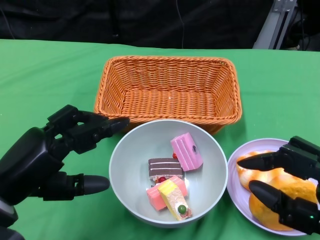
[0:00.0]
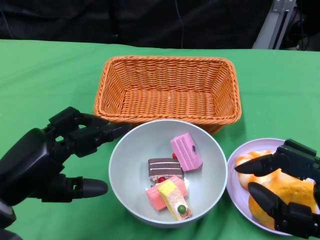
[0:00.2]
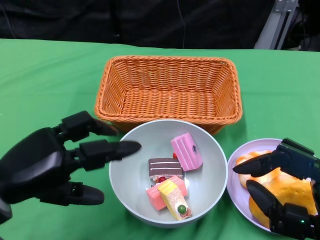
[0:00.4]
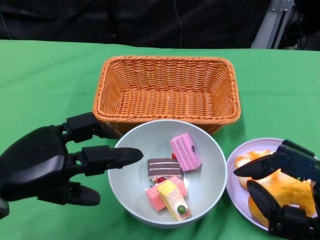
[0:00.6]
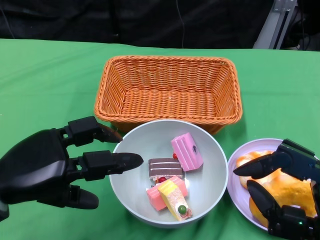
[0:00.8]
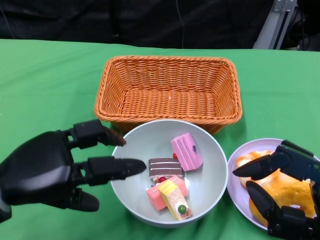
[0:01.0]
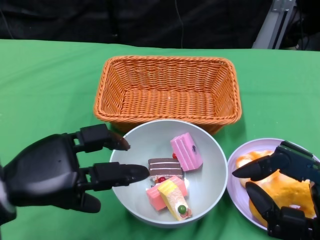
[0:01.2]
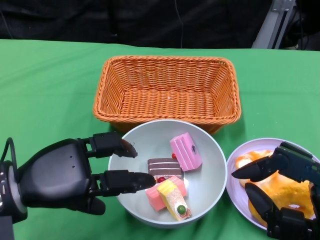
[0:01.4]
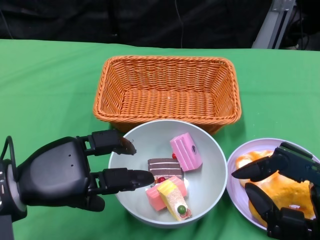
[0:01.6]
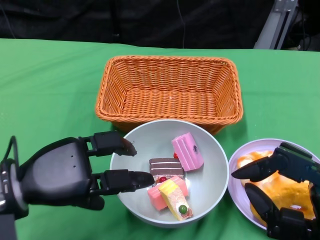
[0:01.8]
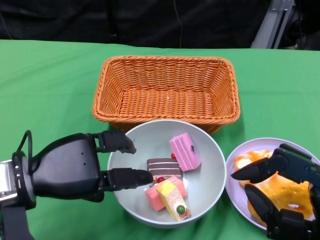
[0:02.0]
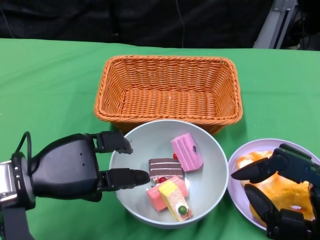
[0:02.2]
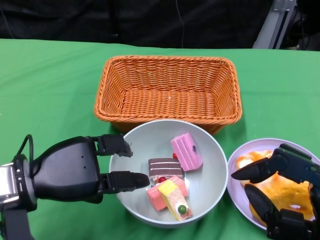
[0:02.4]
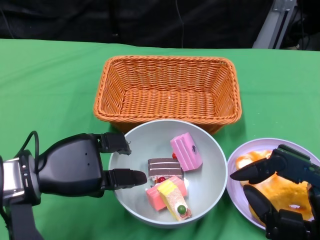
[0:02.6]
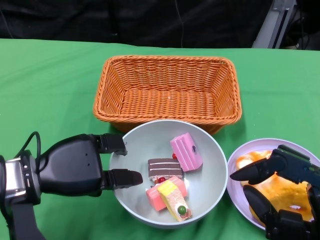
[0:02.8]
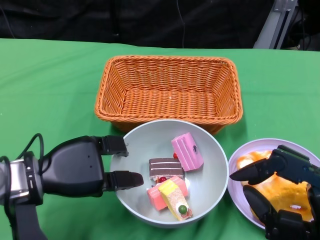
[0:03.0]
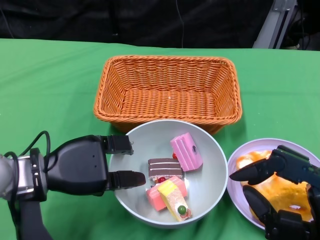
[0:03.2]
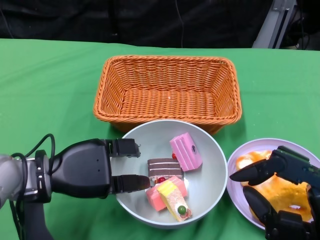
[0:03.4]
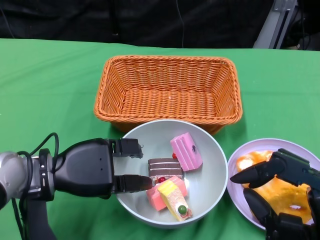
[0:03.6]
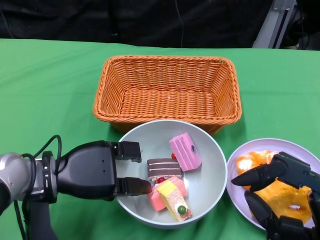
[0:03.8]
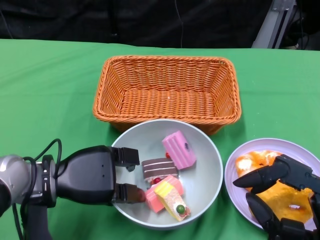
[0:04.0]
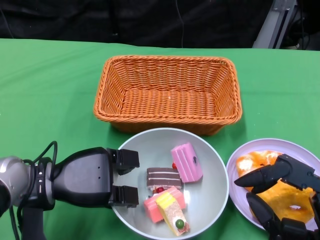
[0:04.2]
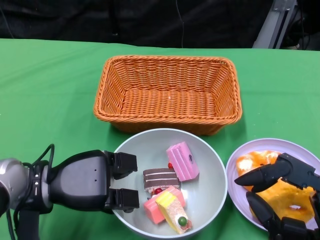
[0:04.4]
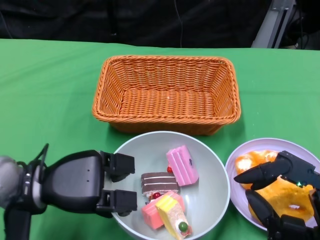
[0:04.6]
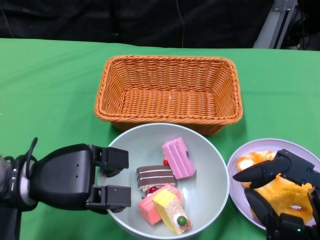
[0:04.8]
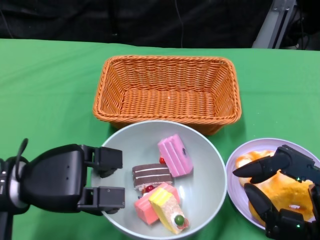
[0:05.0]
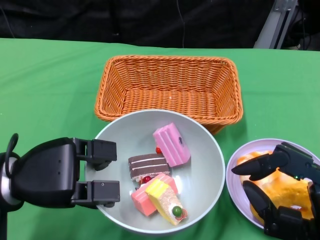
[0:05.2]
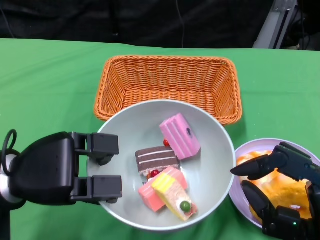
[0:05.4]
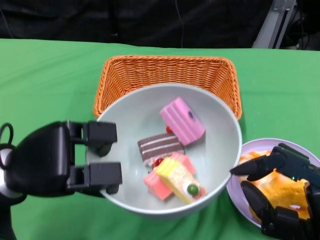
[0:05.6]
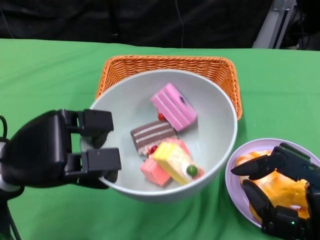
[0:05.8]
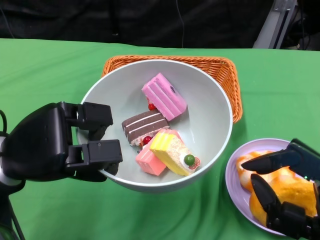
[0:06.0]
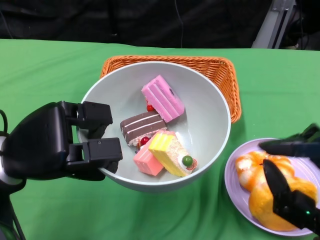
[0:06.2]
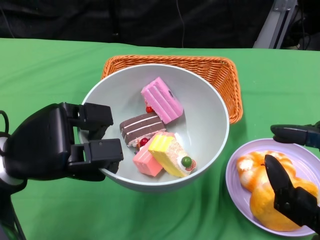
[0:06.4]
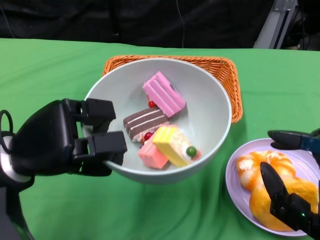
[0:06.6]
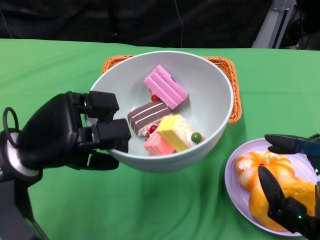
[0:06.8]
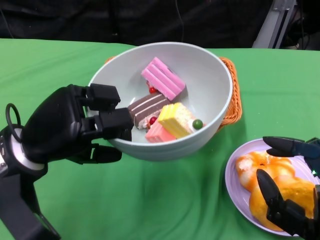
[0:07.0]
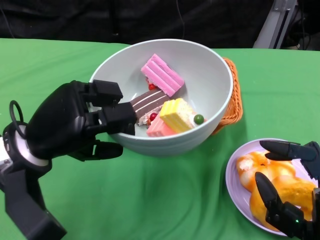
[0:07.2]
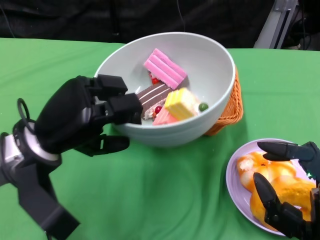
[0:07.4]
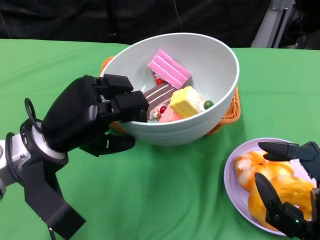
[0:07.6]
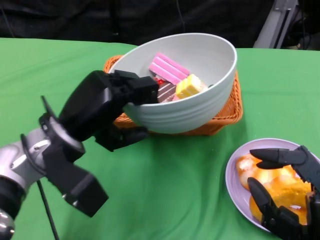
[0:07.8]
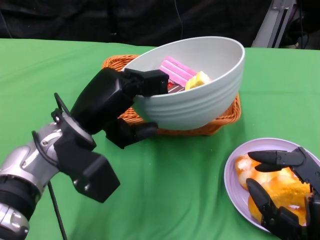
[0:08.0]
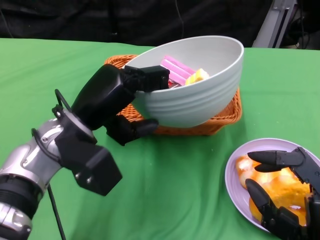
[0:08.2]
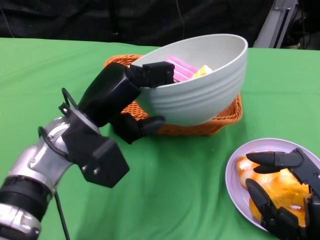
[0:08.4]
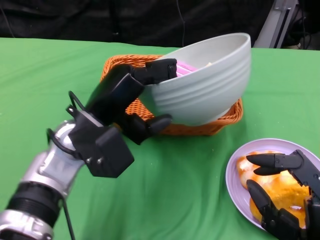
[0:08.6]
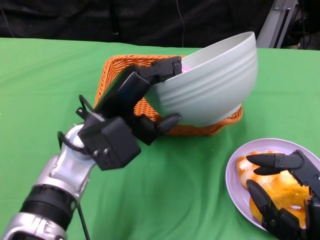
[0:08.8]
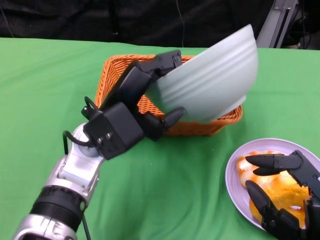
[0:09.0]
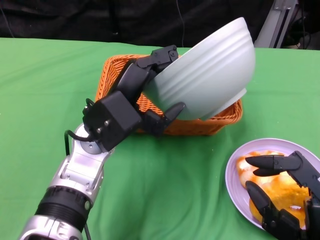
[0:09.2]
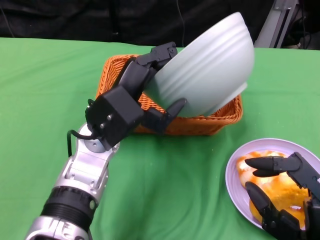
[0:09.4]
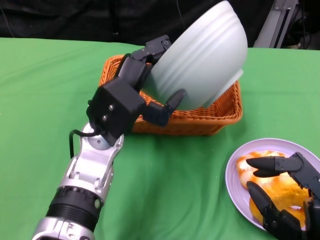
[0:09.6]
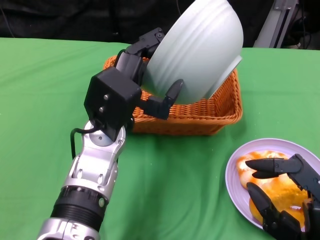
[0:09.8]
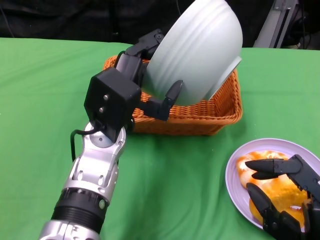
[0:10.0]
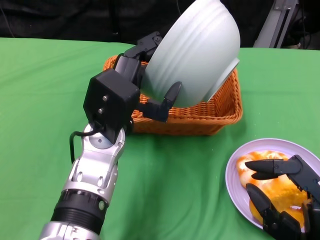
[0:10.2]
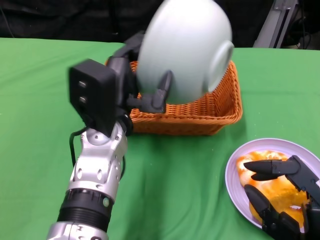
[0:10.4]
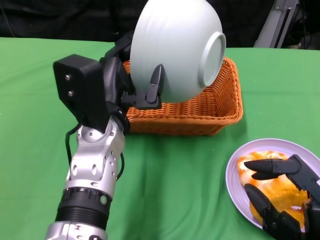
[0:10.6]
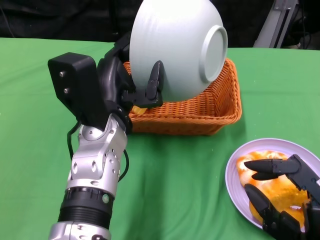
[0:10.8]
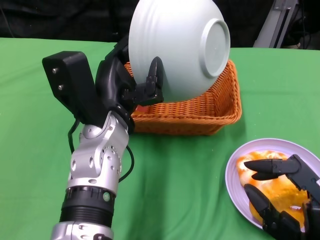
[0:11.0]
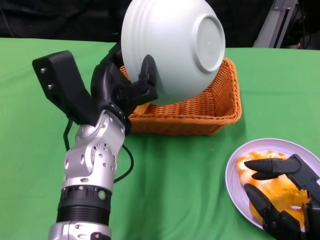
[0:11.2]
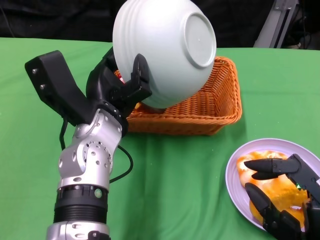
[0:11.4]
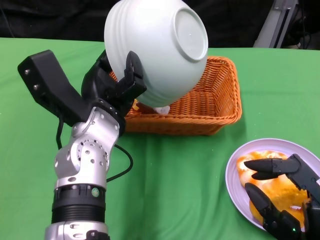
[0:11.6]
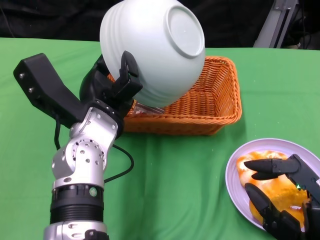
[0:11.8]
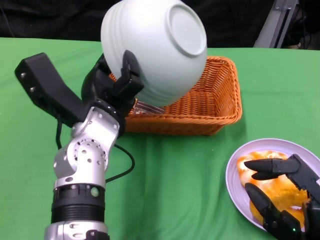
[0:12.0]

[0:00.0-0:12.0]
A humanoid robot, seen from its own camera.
Step, 0.0 to 4.2 s: Grasp the bowl with the left gripper.
1.6 to 3.0 s: The left hand moves some 5 cm.
4.4 to 6.0 s: The left hand heads upward, covering about 10 cm.
6.0 to 7.6 s: The left hand ends up roughly 5 cm from where it was.
7.6 to 9.0 s: The left hand travels to the right by some 10 cm.

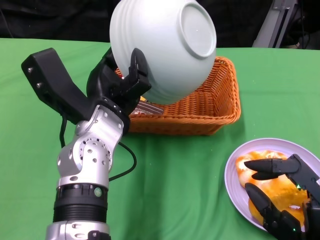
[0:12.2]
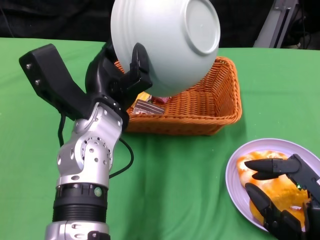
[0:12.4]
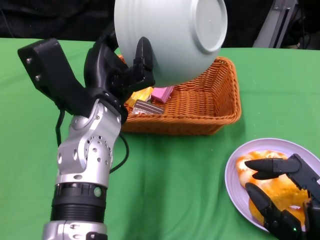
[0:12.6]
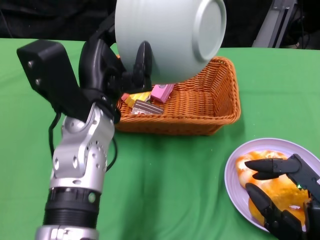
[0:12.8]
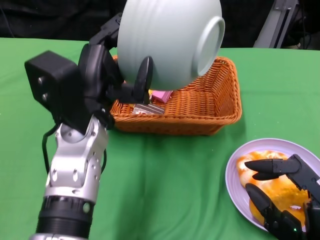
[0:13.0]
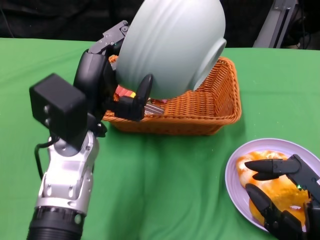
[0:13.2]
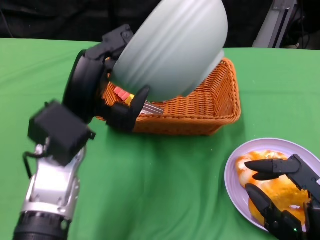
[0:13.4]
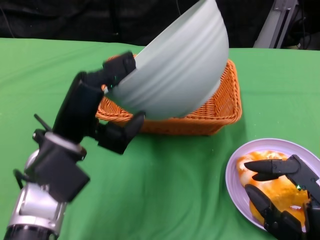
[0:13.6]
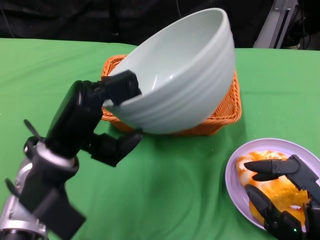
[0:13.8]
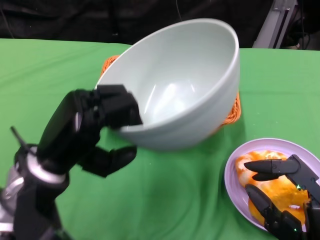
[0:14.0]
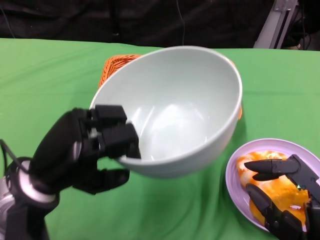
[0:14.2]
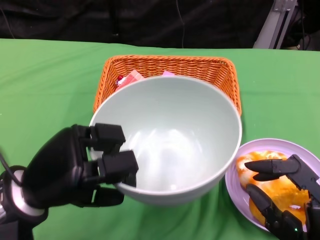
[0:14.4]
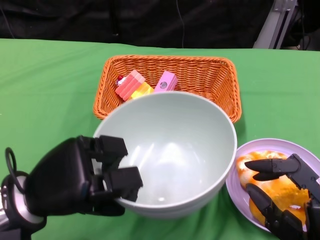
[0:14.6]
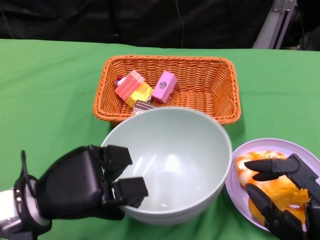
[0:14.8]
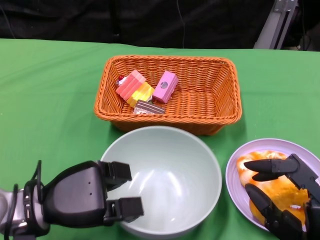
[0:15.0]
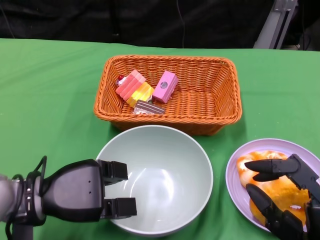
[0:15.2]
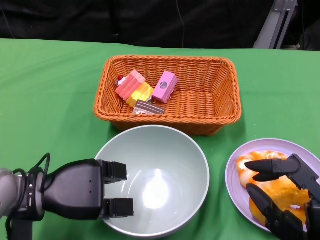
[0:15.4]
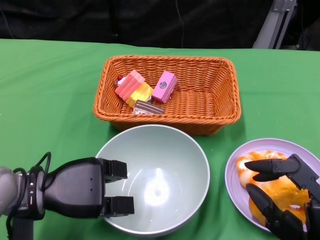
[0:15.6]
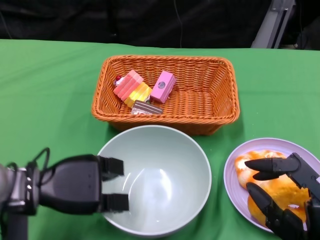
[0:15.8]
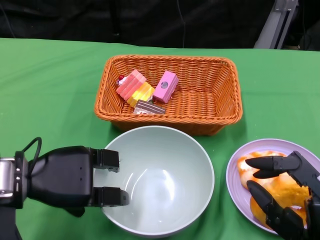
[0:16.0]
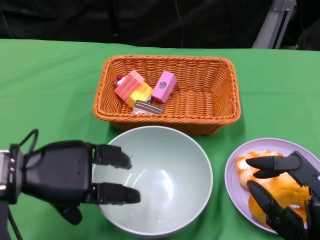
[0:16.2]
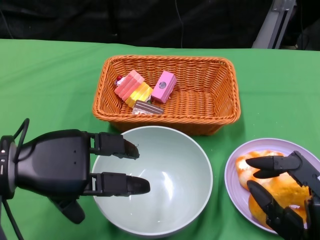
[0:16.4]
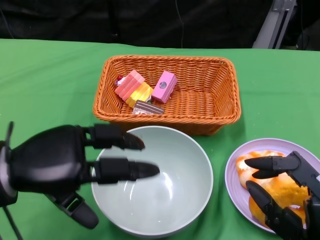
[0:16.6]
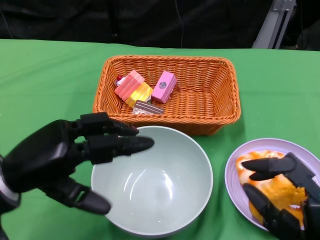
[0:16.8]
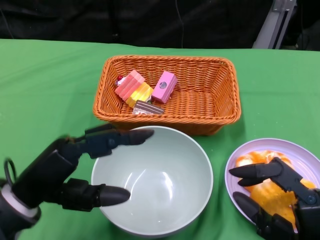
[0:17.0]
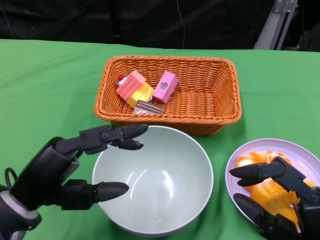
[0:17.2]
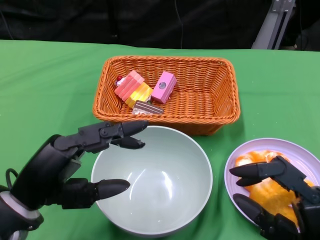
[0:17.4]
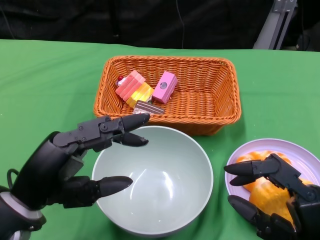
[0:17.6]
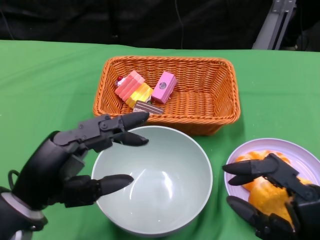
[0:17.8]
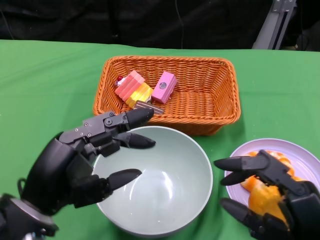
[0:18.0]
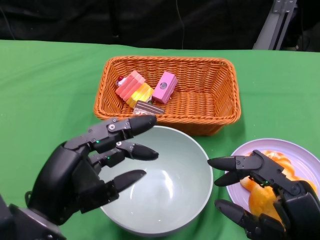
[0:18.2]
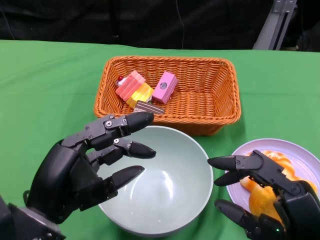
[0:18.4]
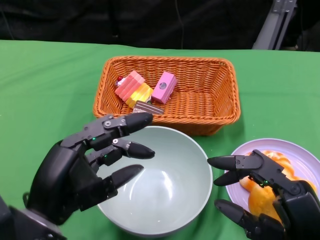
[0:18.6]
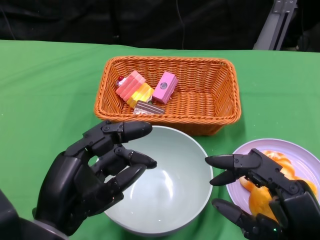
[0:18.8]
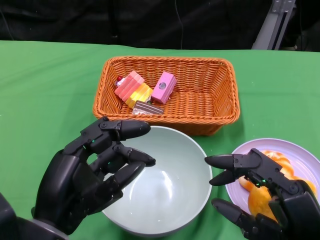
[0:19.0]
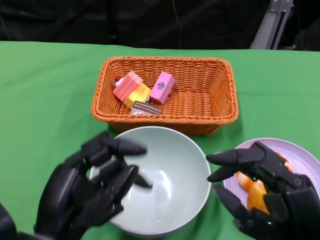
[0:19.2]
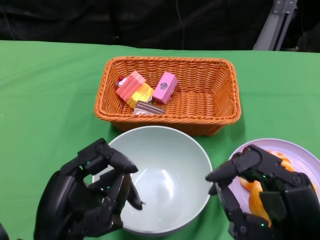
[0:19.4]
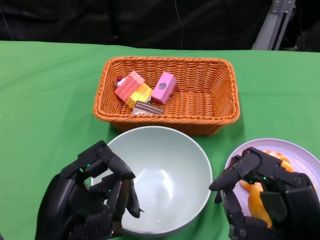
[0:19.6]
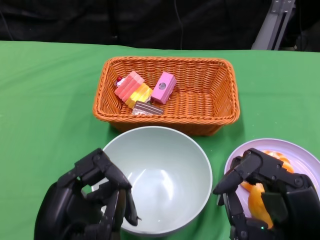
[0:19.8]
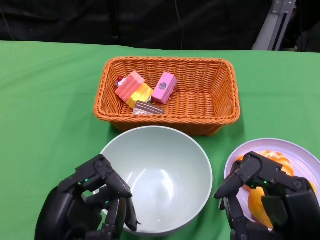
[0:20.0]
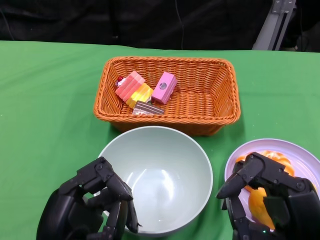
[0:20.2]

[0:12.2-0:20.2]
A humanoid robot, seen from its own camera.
Step, 13.0 to 17.6 s: Place the bowl on the table with the left gripper.
12.2 to 13.8 s: The left hand heads to the left and backward, covering about 10 cm.
13.8 to 15.4 s: The left hand heads downward, covering approximately 10 cm.
15.4 to 17.0 s: The left hand goes approximately 10 cm backward and upward.
17.0 to 18.6 s: The left hand shifts by some 5 cm.
18.6 to 20.2 s: The left hand moves about 5 cm.

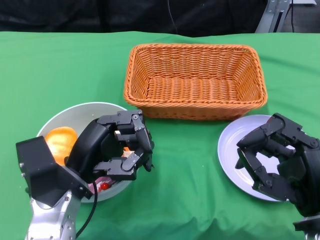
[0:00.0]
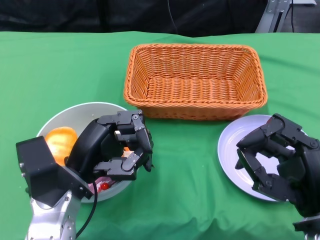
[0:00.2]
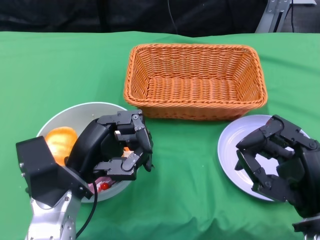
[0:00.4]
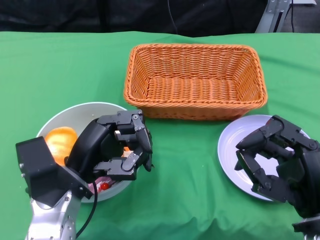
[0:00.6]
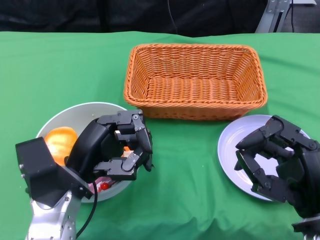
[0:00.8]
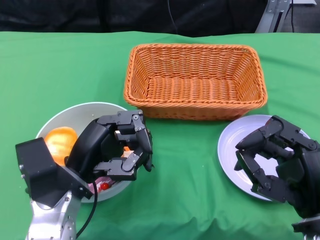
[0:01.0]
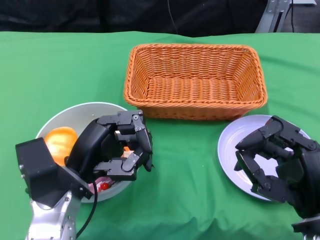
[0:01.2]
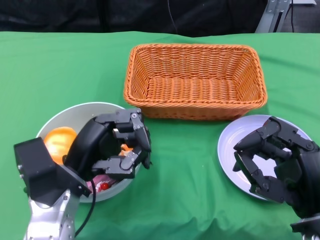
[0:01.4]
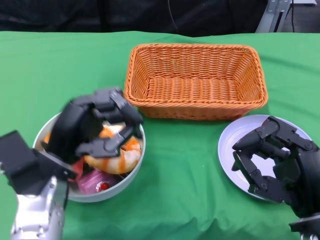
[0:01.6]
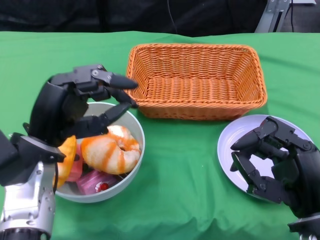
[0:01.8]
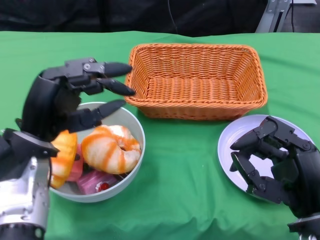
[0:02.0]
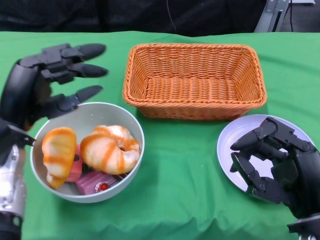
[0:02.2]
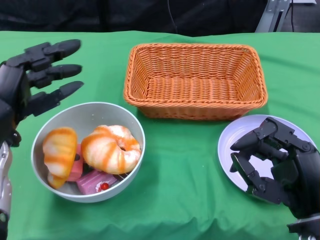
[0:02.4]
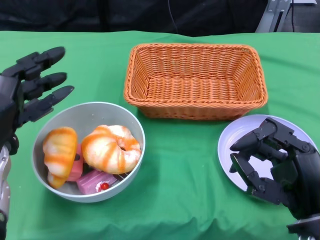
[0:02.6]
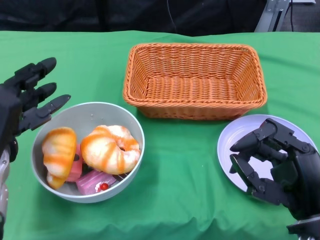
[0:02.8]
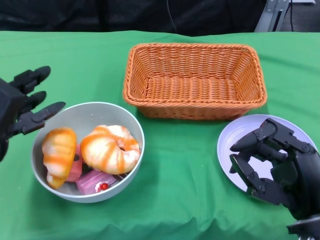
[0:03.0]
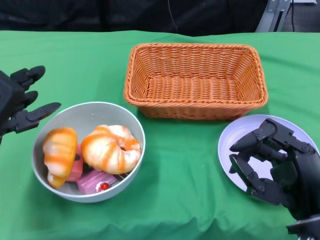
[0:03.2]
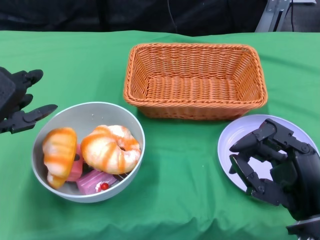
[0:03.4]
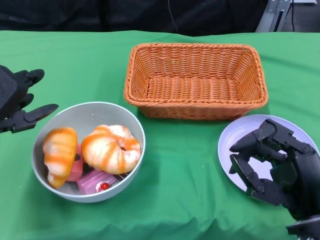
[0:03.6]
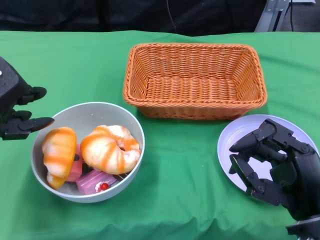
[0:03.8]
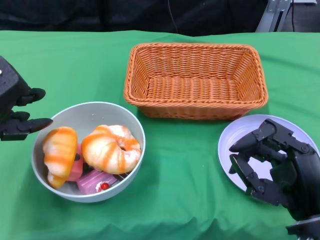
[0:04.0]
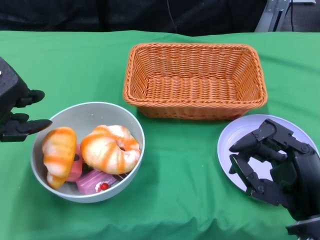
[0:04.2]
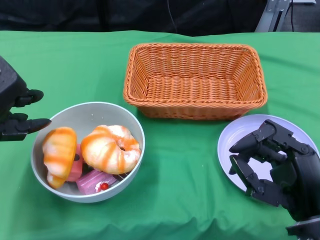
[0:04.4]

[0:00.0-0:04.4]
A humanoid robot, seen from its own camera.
1.4 to 3.0 s: The left hand shifts about 10 cm to the left.
